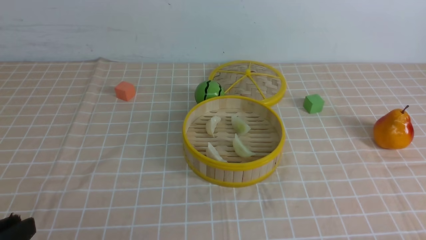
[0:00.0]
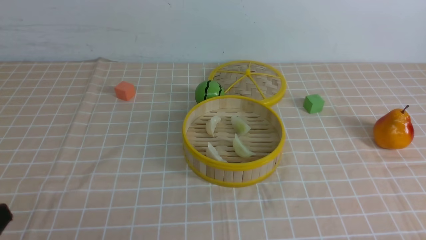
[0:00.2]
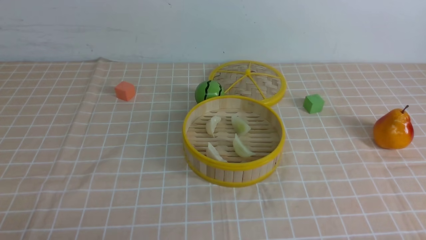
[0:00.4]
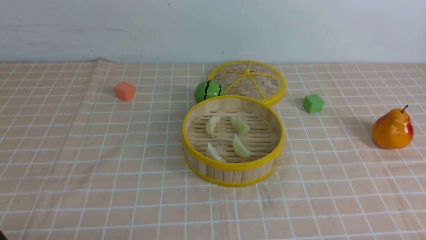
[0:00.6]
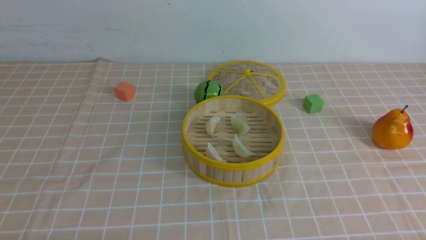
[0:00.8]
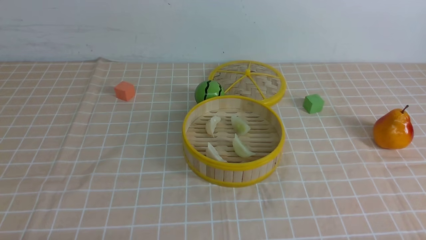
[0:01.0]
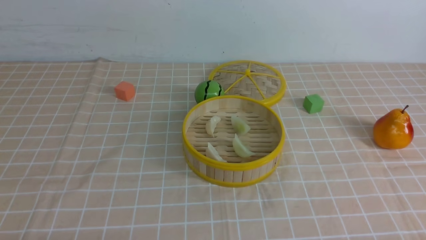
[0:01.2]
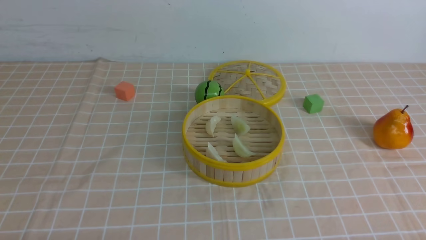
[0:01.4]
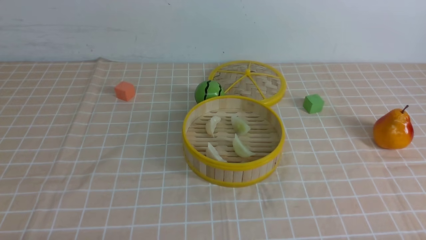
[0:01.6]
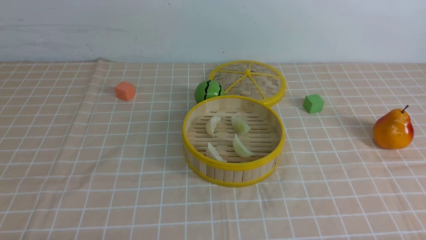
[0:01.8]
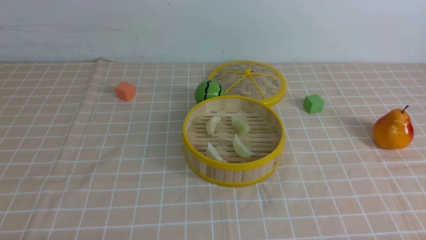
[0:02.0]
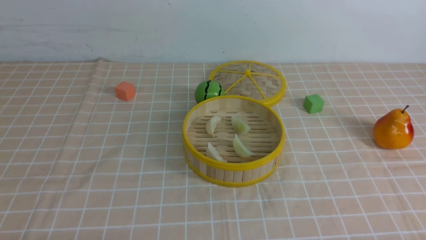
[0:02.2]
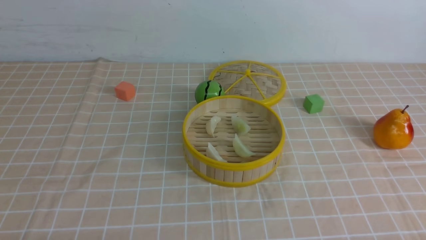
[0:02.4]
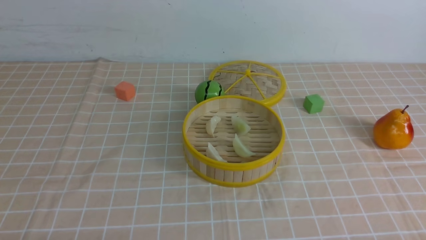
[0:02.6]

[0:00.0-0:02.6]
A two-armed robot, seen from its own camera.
Task of the whole recording: put the dumplings into the steamer on the table with the brown tablecloth.
0:00.0 to 0:01.2: The left gripper travels downward by approximately 10 cm.
0:01.2 to 0:02.6: Both grippers stay put.

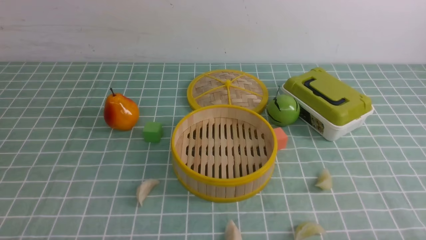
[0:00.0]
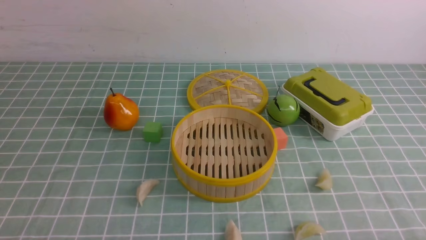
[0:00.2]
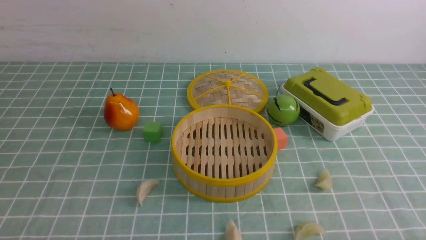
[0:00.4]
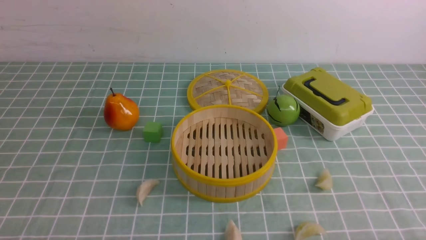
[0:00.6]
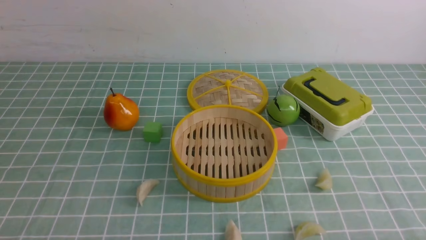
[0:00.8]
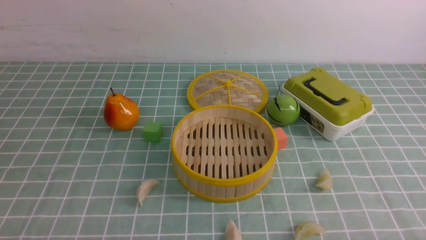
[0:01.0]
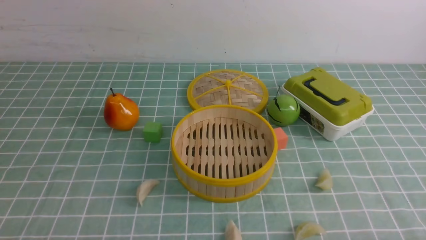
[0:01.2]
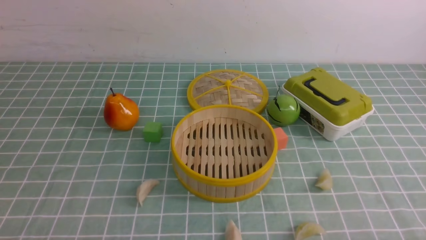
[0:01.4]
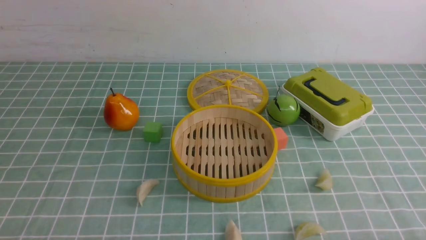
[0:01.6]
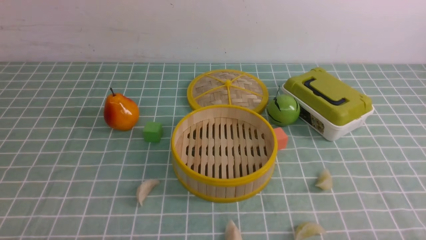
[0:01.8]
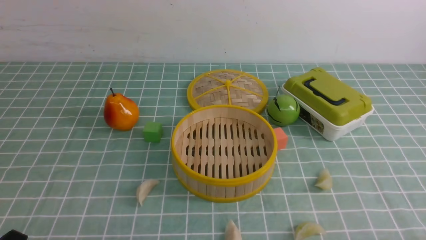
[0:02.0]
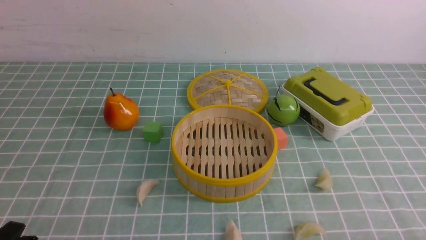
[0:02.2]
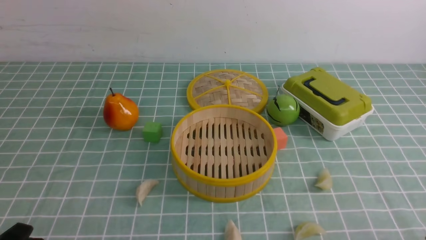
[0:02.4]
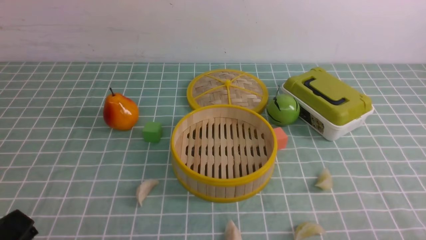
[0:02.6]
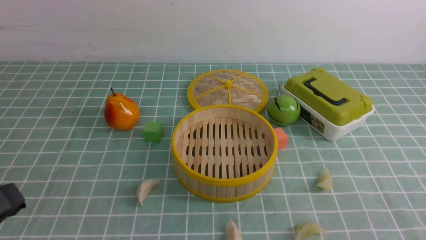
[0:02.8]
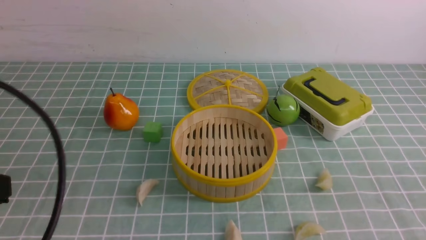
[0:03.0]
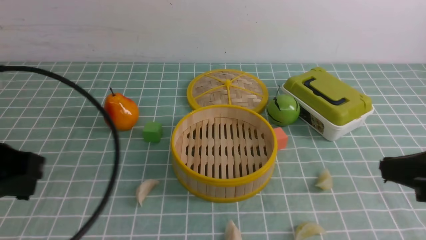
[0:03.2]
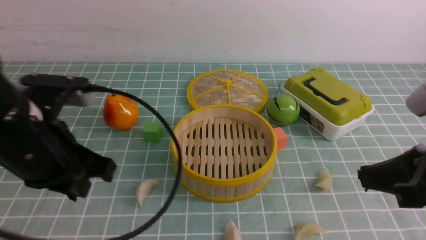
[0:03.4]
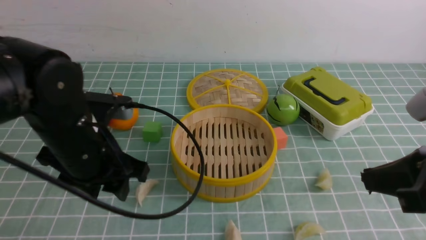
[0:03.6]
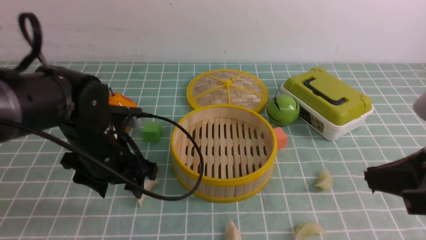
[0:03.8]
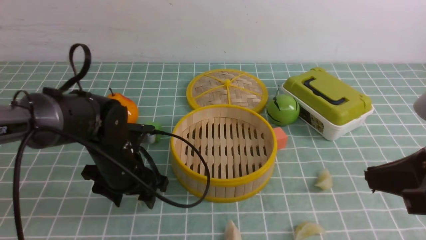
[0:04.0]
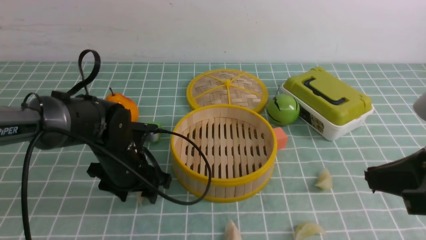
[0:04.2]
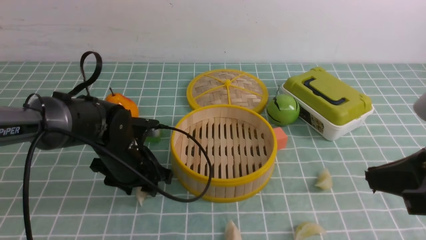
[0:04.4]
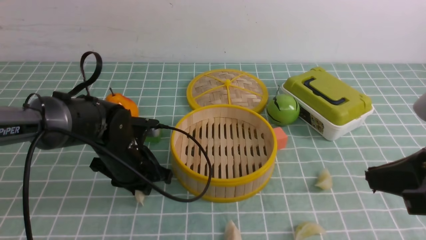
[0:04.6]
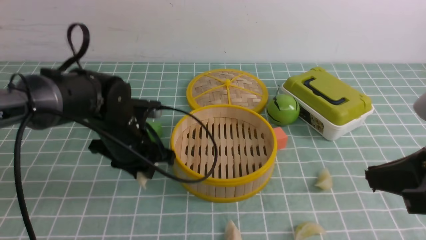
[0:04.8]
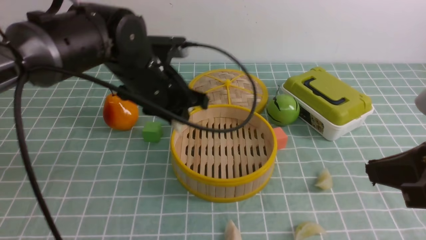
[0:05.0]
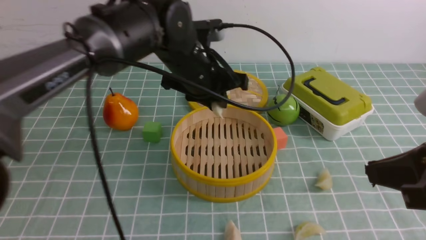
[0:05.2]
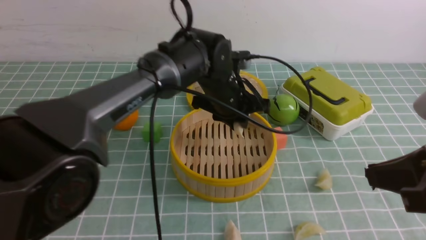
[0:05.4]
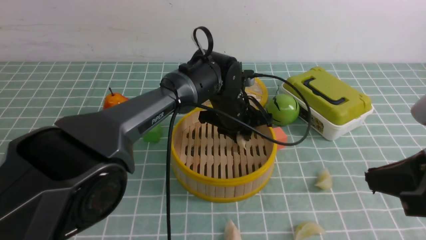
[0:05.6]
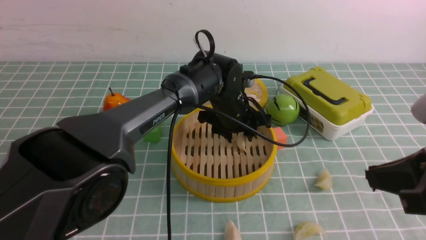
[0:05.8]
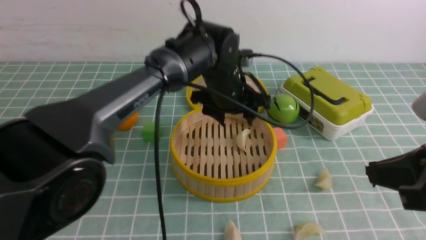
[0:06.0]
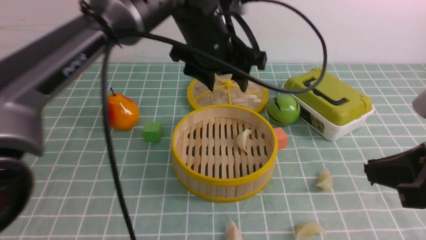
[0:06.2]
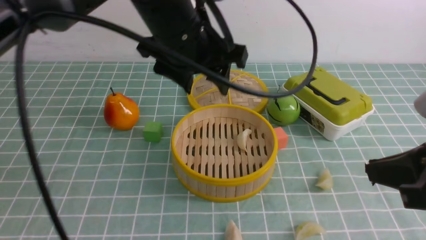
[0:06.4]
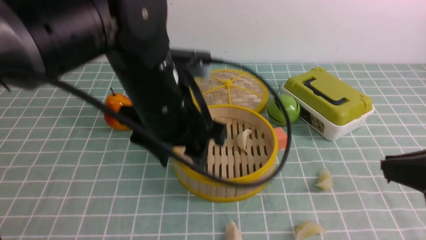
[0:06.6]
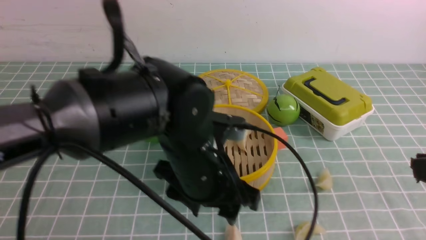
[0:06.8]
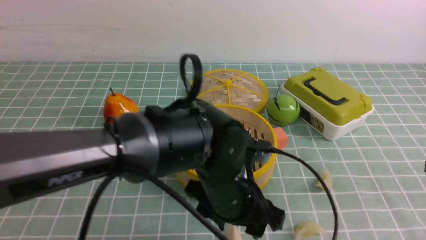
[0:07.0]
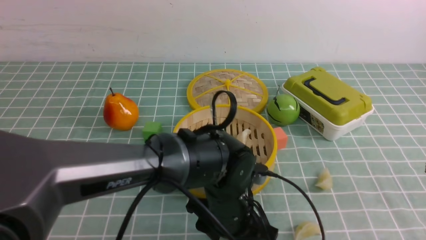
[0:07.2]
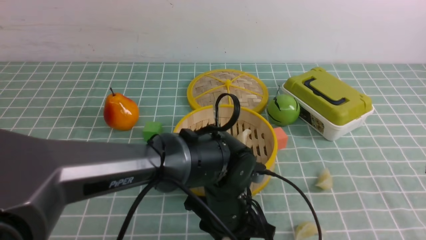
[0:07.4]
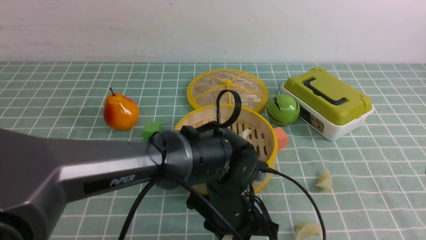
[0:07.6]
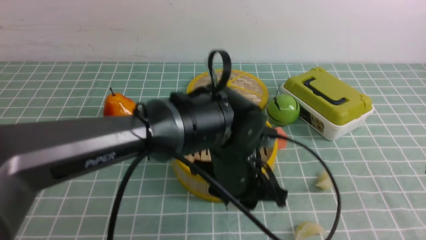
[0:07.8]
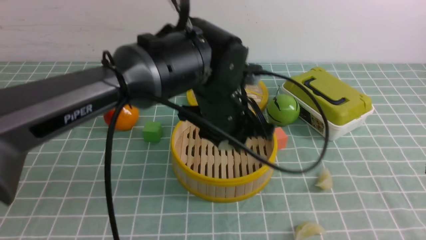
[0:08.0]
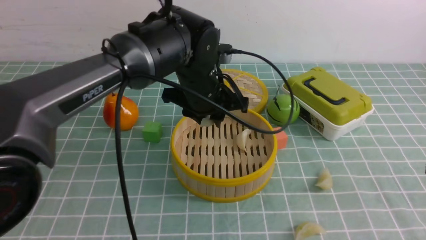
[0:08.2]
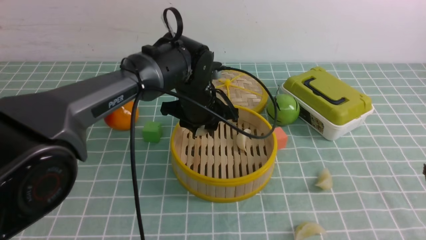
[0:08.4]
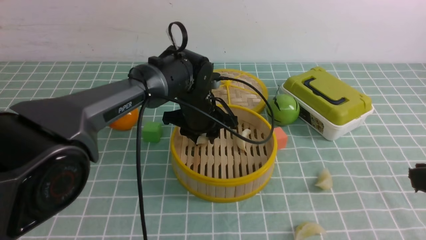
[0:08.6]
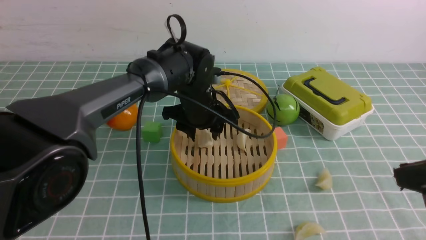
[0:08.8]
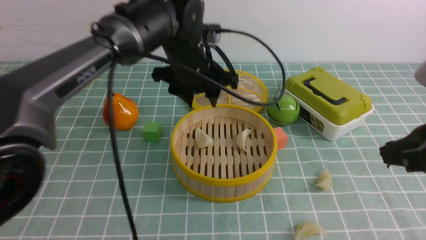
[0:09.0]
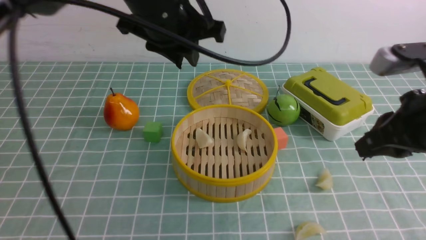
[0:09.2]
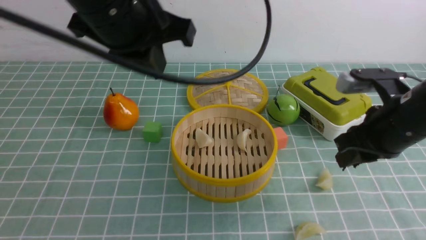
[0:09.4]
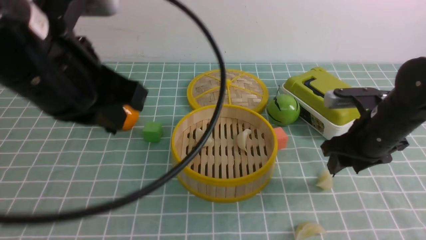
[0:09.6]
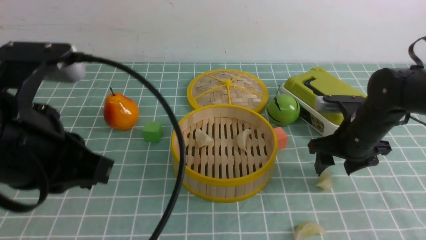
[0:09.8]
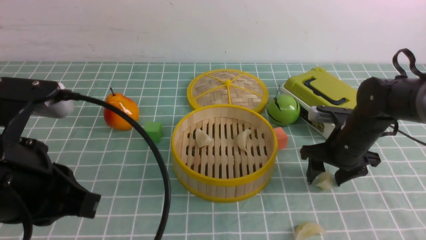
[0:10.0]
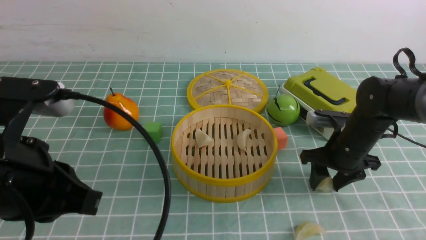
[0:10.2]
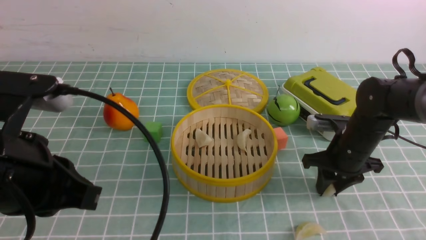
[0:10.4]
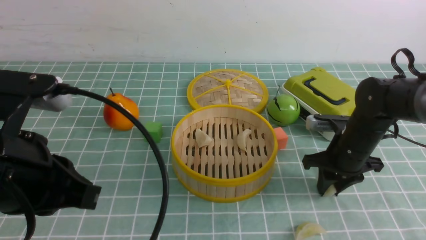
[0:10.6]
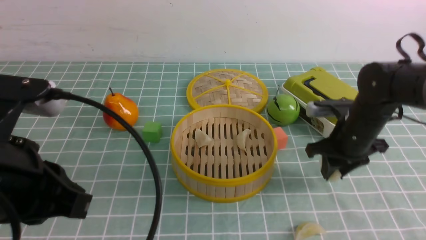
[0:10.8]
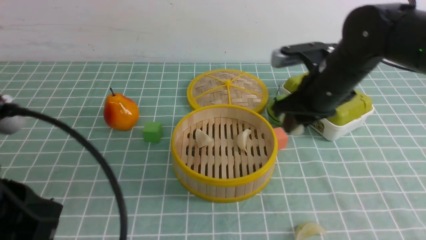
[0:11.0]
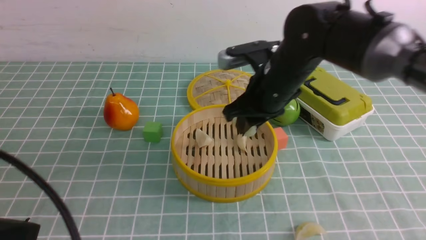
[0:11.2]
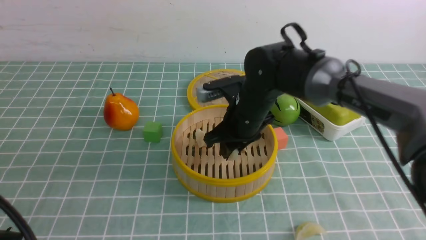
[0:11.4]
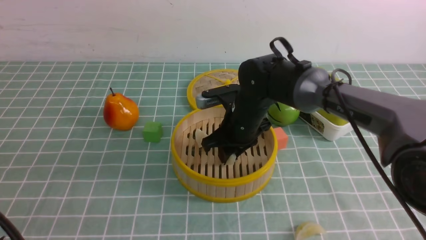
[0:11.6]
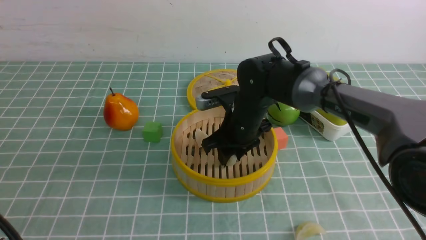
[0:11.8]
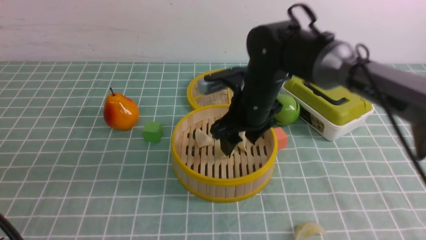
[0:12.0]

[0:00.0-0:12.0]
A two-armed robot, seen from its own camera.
Task of the whole recording: put the dumplings into the steamer on the table with the blue tablecloth.
Step, 0:00.0 to 0:04.4: use the left arm to grab a dumpling.
Step, 0:04.6 to 0:06.0: use the left arm to put the dumpling into the steamer.
Step, 0:06.2 to 0:07.4: use the left arm to grab a dumpling.
Step, 0:07.6 to 0:08.8: use the left arm to put the dumpling into the steamer.
Step, 0:09.2 to 0:10.4: use the right arm to grab a dumpling.
0:01.6 to 0:03.0: The left gripper heads upward, covering approximately 15 cm, and closes up.
0:03.0 to 0:04.4: The right gripper travels forward by roughly 10 cm. The left gripper moves forward and downward, some 30 cm, and opens up.
0:04.4 to 0:06.0: The left gripper goes about 20 cm to the right, upward and forward, and closes and opens again.
0:06.0 to 0:07.6: The right gripper heads backward, covering about 5 cm. Meanwhile the left gripper travels backward and downward by about 20 cm.
0:07.6 to 0:09.0: The right gripper goes about 5 cm forward. Meanwhile the left gripper moves forward, upward and to the left, roughly 20 cm.
0:09.0 to 0:10.4: The left gripper heads backward and to the left, covering roughly 30 cm, and closes up, while the right gripper travels forward and downward by roughly 25 cm, and opens up.
0:10.4 to 0:12.0: The left gripper heads backward and to the left, covering about 10 cm. The right gripper goes roughly 20 cm to the left and upward.

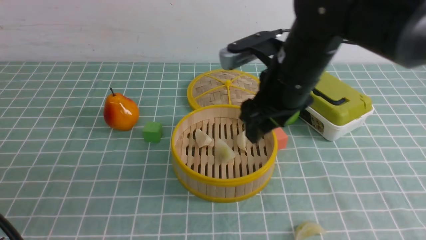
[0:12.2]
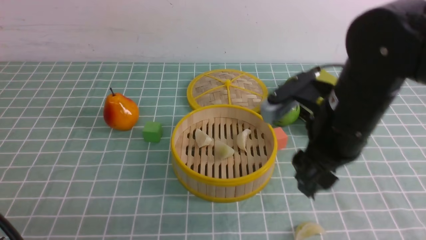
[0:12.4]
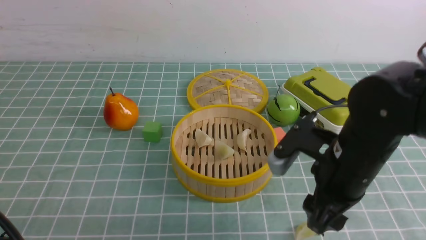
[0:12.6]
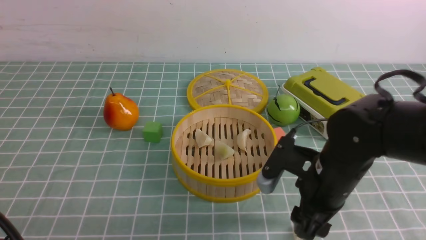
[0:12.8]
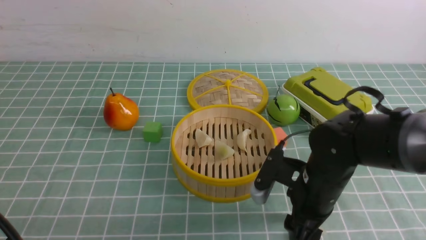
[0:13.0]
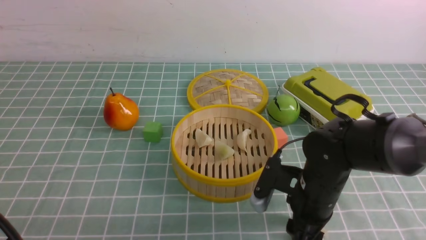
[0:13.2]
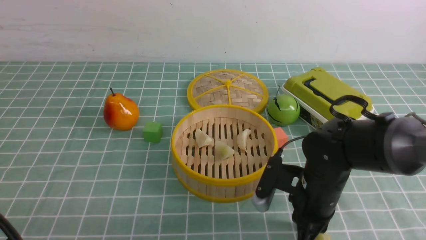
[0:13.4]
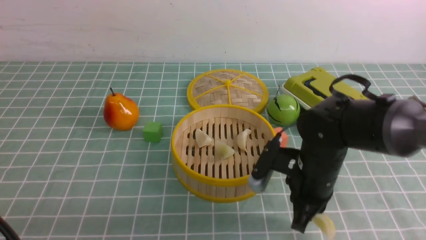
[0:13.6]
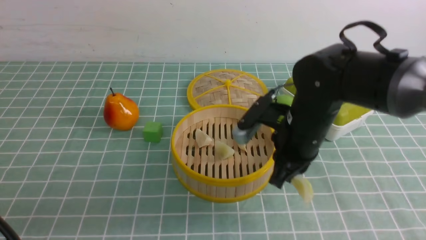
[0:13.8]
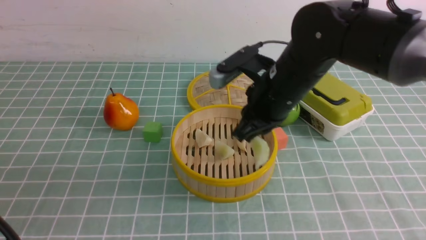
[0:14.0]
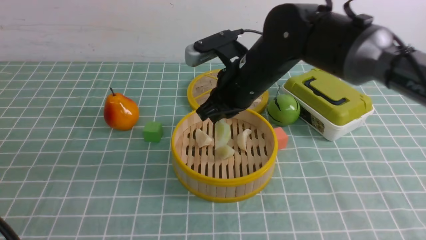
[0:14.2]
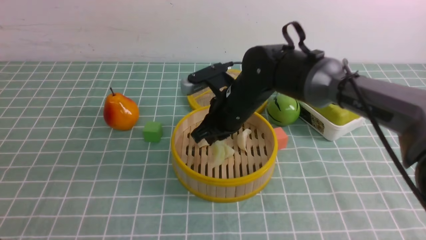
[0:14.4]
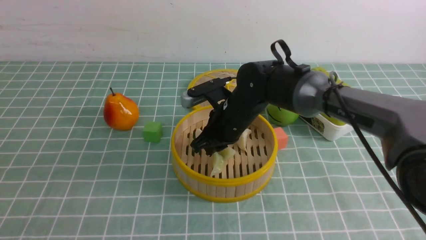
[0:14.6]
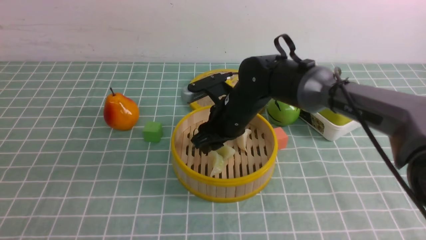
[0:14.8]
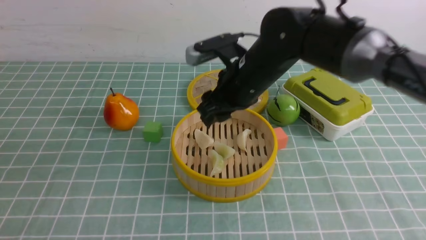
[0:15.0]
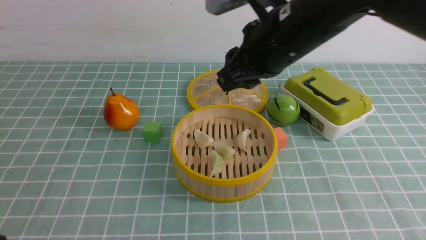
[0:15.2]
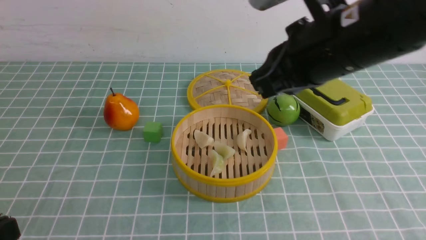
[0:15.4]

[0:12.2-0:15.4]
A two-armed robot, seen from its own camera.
Task of the whole recording: put the dumplings into the steamer on the table with the blue tablecloth.
Step, 0:12.2 to 0:13.2: use the right arm to grab a dumpling.
Step, 0:13.4 to 0:14.8: use the right arm to put the dumpling into the steamer.
0:12.2 to 0:13.8: The right gripper heads downward, covering roughly 5 cm, and closes.
0:13.8 to 0:15.4: The left gripper ends up approximately 5 cm from where it was, while the right gripper swings up and down, some 20 cm each way, with 2 reversals, and opens, then closes once more.
